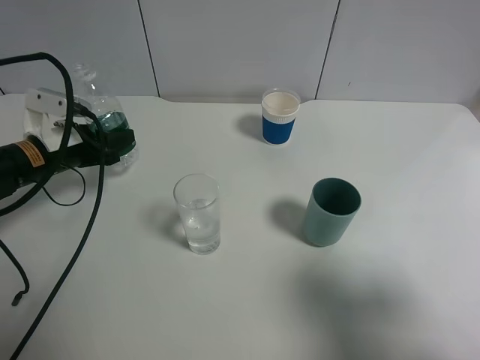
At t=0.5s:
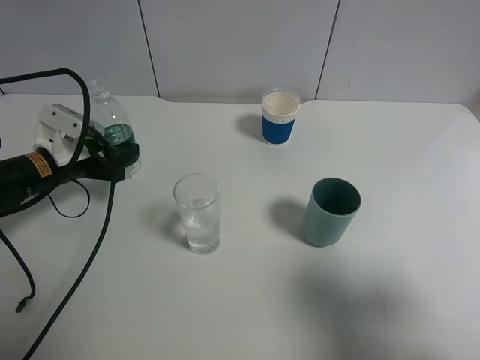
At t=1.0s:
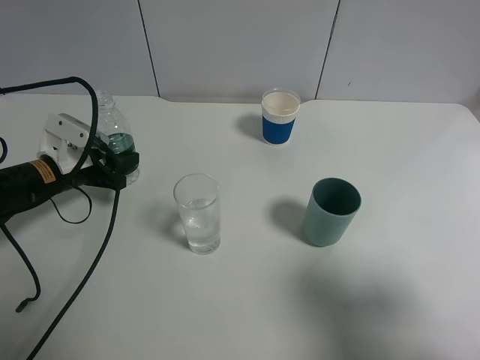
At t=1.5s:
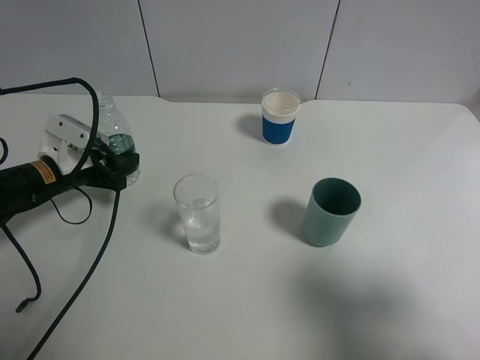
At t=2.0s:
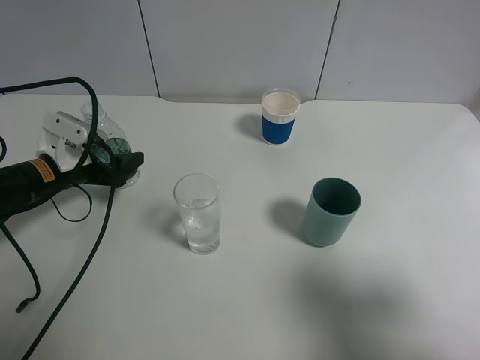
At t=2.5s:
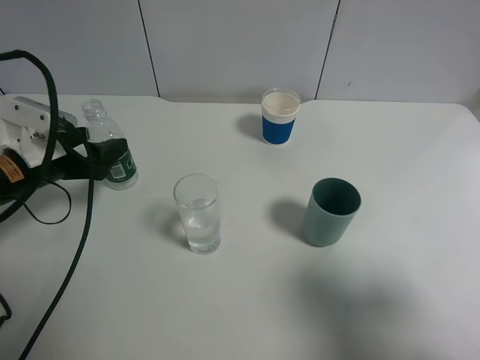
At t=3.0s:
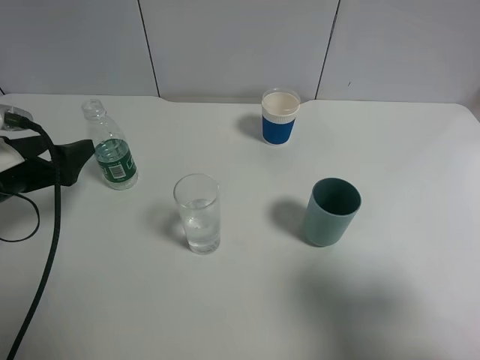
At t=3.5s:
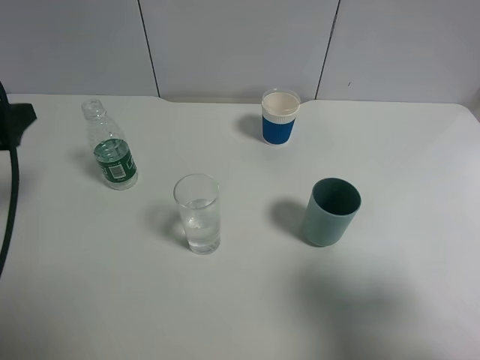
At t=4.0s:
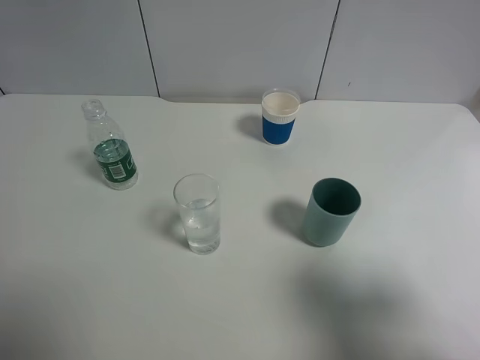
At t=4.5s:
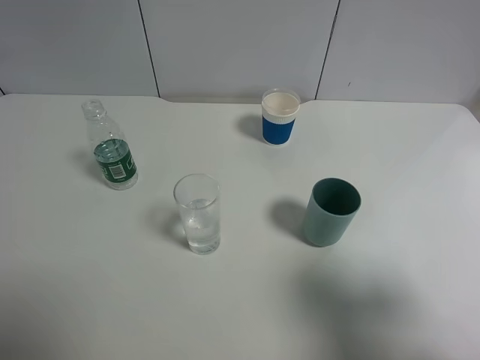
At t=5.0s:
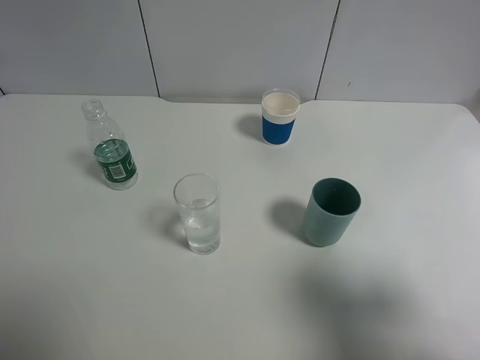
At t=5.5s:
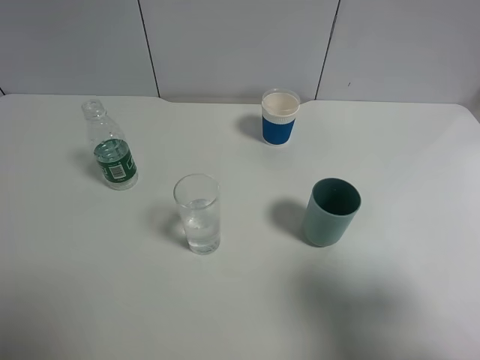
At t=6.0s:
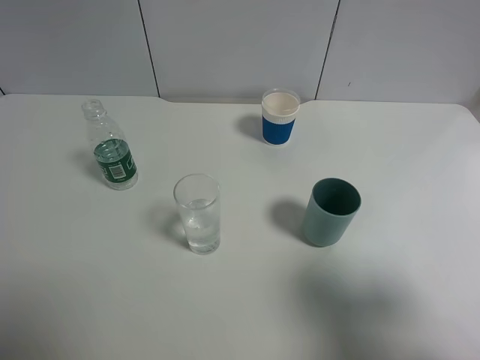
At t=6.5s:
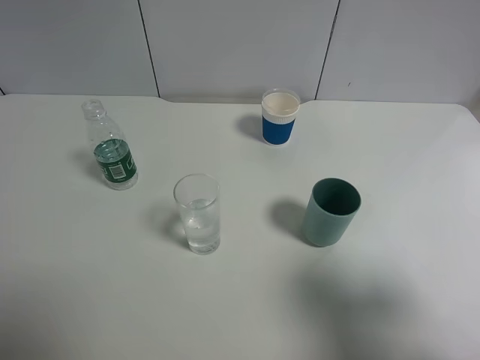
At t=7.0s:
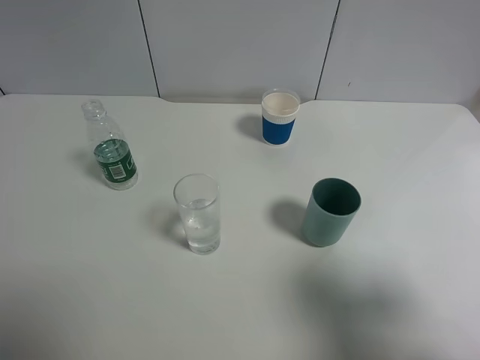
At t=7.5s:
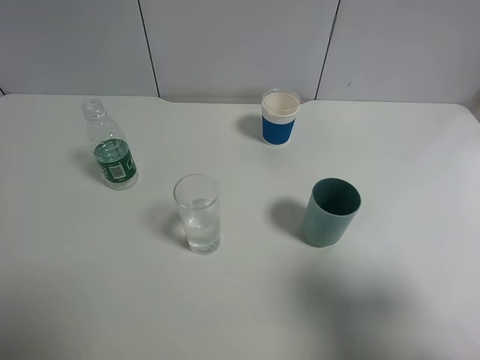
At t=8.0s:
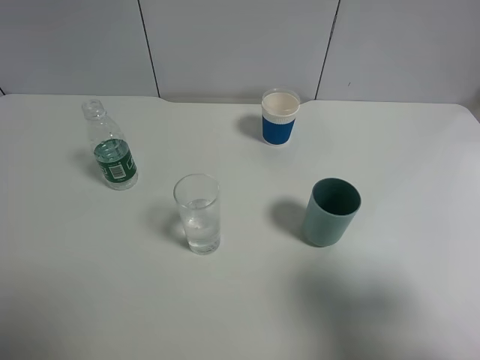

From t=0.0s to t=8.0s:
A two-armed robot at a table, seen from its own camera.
Task of the whole recording: use a gripper to hold the bottle of the drink and pour it into a random cup.
Step, from t=0.0s to t=2.0s: Place the mineral water bottle on the table with the left gripper.
From t=0.0s to t=2.0s: The left gripper opens its fingers.
From t=2.0s to t=4.0s: The left gripper shifts approximately 30 cm upward and backward.
From t=6.0s to t=8.0s: Both grippers stay about where they are.
